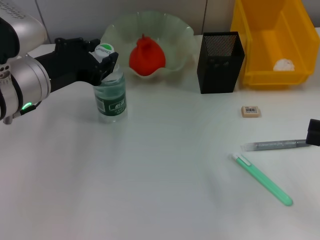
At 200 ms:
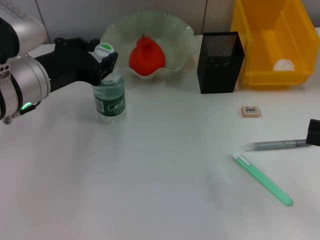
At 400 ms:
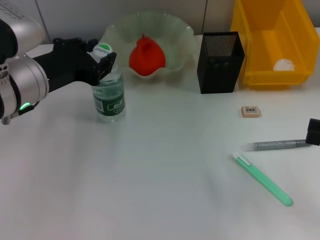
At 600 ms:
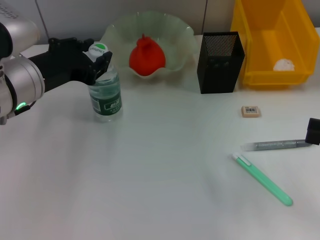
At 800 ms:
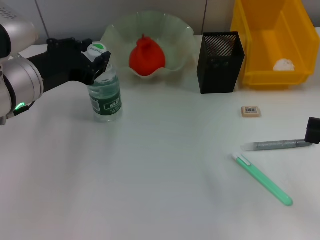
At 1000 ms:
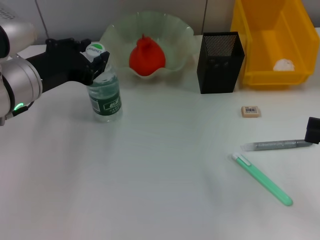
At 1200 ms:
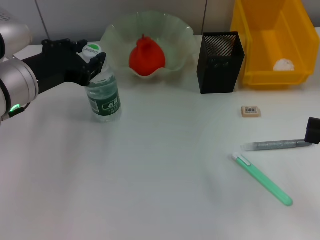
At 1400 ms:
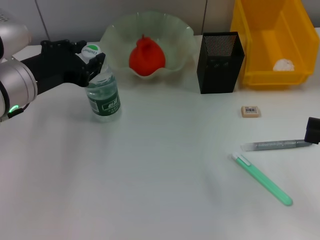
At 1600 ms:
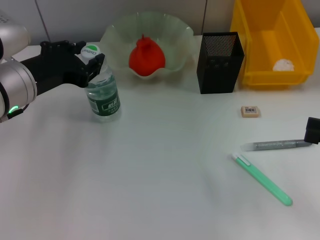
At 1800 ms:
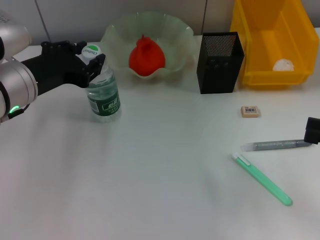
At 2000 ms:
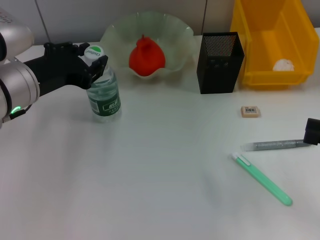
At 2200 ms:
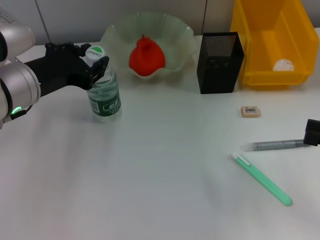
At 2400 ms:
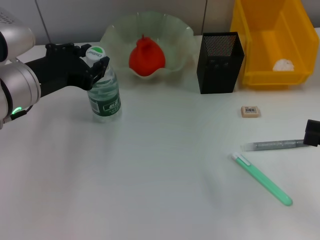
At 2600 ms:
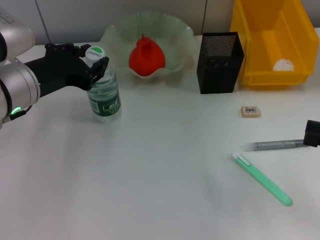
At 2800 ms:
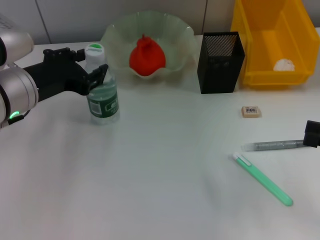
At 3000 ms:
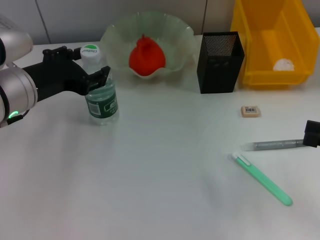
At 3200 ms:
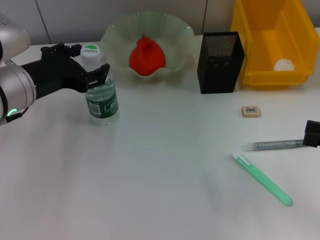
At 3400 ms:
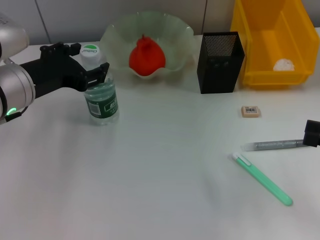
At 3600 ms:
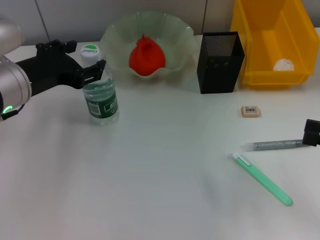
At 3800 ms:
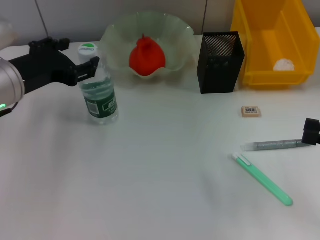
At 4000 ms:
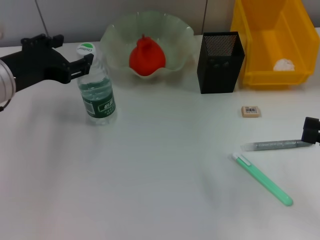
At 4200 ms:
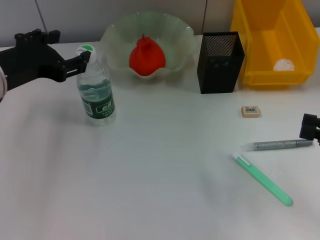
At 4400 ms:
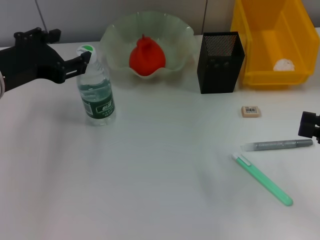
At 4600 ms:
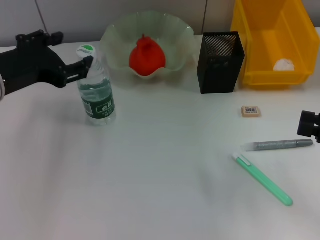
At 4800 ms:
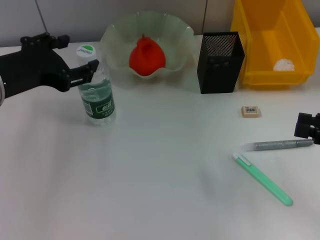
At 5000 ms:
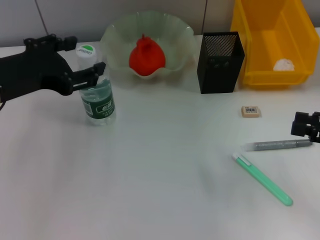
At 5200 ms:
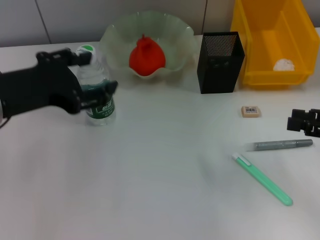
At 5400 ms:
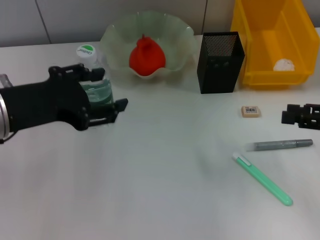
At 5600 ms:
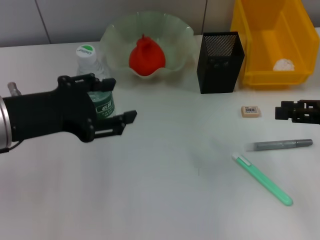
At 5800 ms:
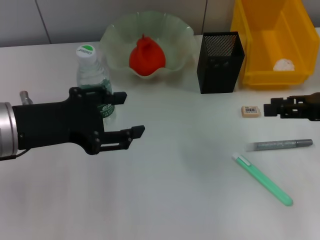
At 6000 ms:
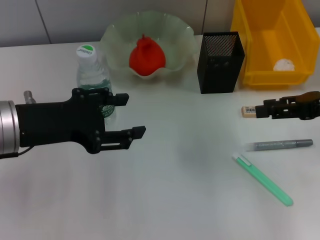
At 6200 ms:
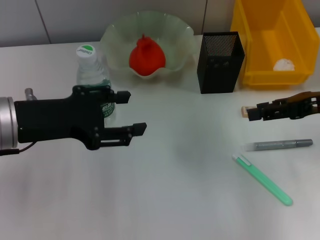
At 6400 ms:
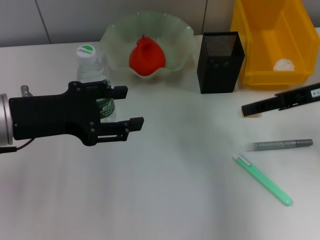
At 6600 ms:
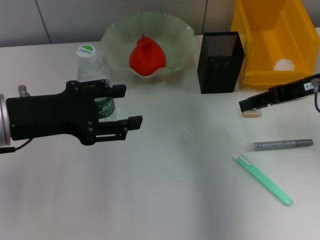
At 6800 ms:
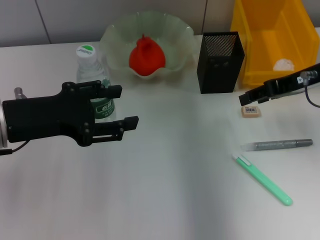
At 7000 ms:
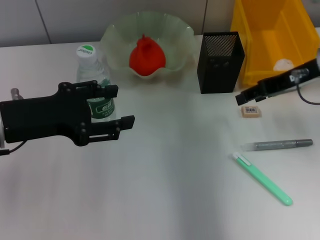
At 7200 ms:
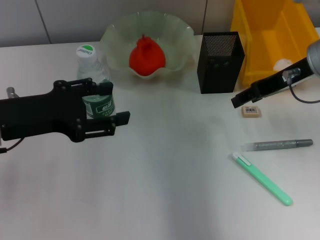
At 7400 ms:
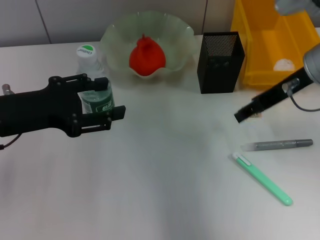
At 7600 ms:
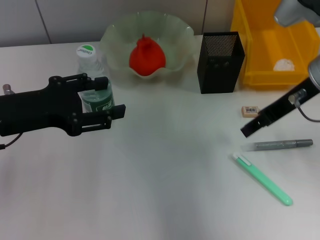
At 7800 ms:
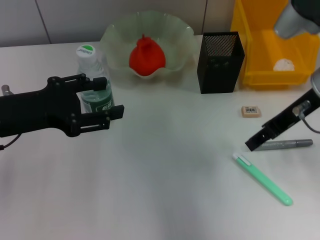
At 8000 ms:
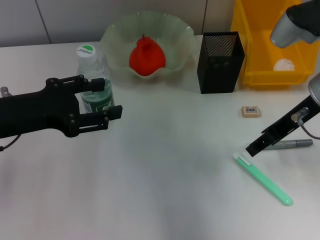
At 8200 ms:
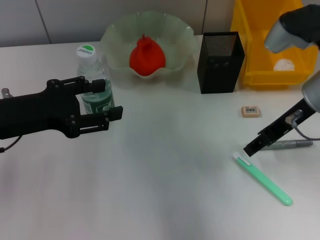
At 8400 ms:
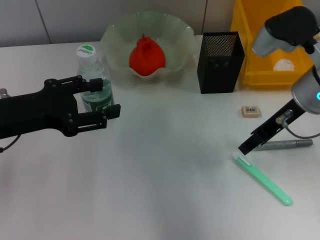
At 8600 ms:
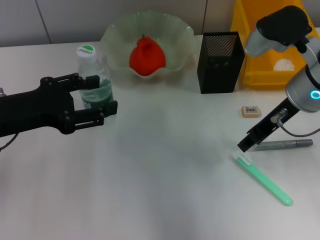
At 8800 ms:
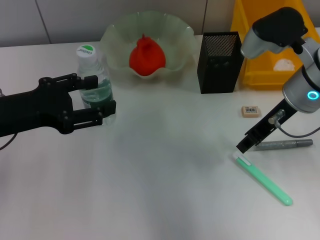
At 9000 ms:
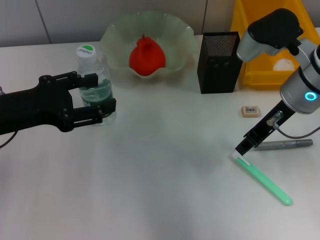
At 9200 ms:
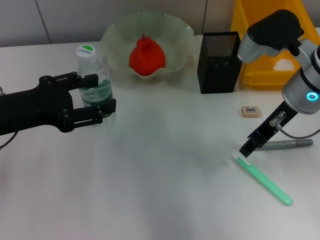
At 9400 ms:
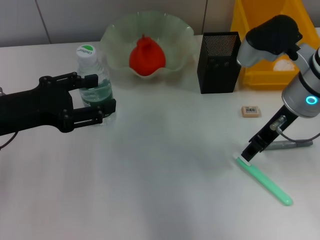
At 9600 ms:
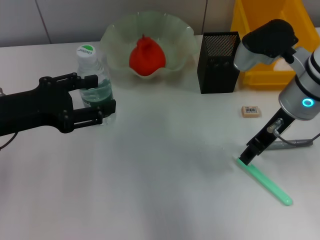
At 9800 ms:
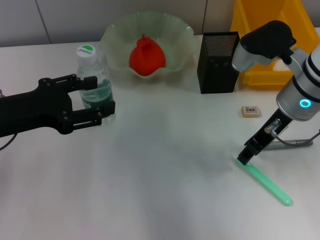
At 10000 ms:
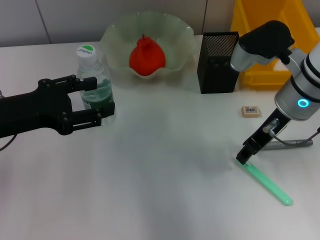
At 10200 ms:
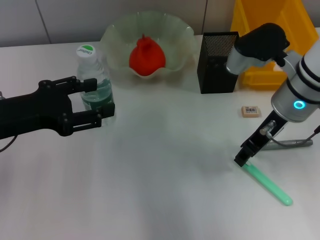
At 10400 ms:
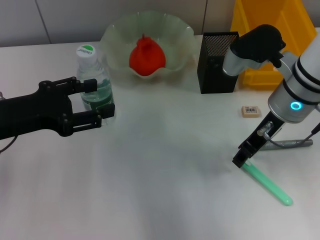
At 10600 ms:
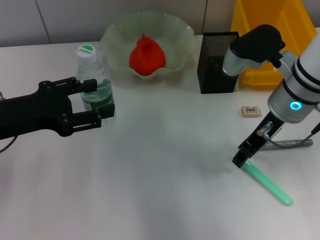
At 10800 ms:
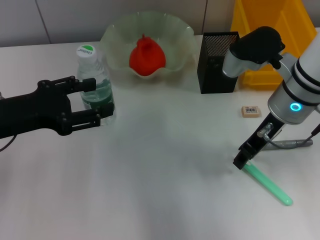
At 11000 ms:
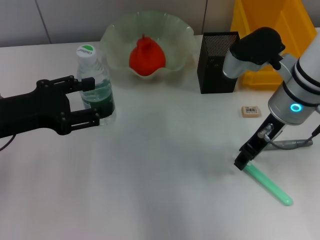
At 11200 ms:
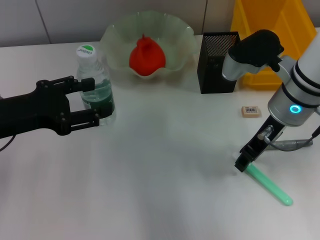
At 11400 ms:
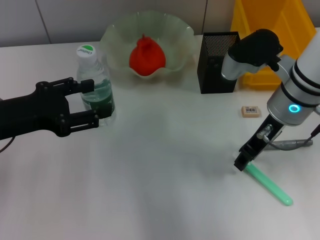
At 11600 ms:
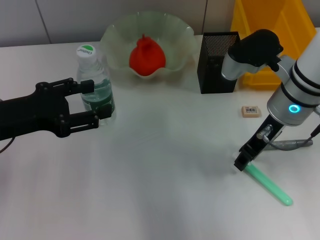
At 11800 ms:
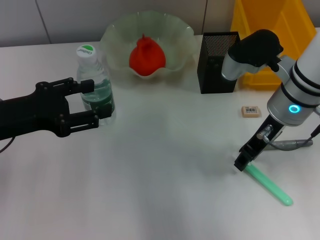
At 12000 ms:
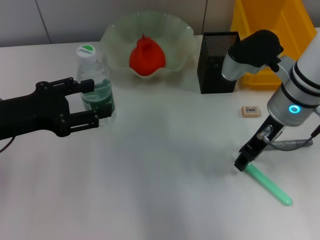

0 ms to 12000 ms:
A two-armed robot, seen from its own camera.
0 ms to 1600 ms: The grippers stay close to where they were, moving slightly.
1600 ms to 3000 ms: Both grippers stay put.
3000 ms to 4400 ms: The left gripper opens up.
4400 ms to 6000 ms: The right gripper shifts roughly 10 cm forward and to the left.
6000 ms to 7600 ms: The right gripper shifts approximately 10 cm to the left.
7600 ms to 9000 ms: The grippers stay close to where they were, moving slightly.
9000 ms to 10400 ms: There are only small adjustments of the grippers.
10400 ms to 12000 ms: Neither gripper changes place.

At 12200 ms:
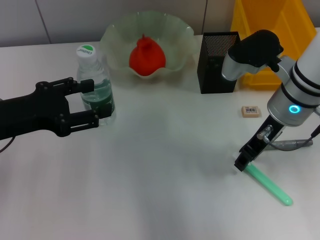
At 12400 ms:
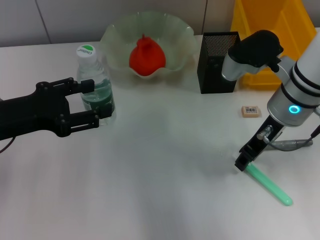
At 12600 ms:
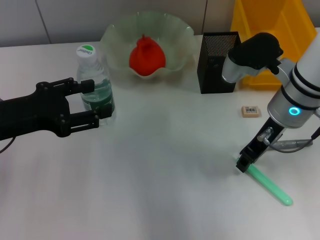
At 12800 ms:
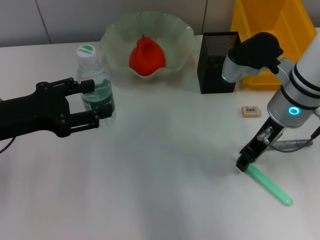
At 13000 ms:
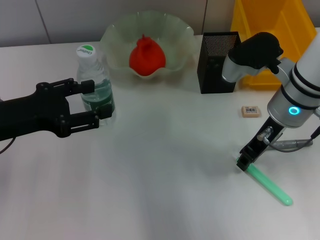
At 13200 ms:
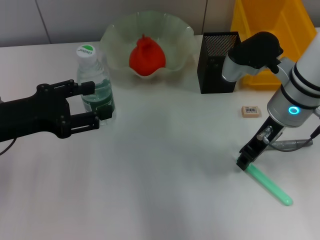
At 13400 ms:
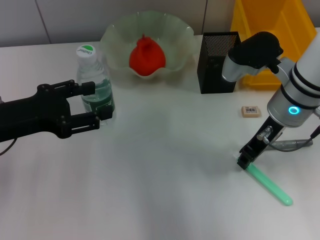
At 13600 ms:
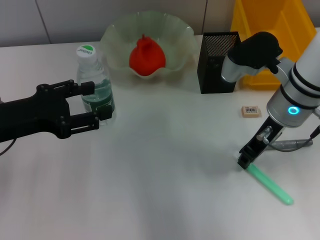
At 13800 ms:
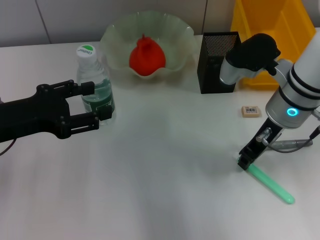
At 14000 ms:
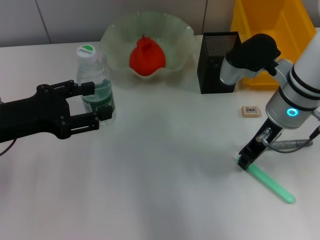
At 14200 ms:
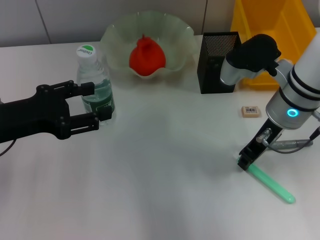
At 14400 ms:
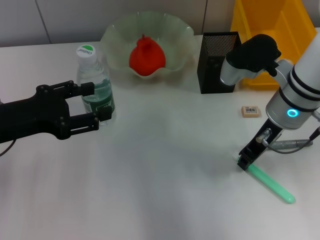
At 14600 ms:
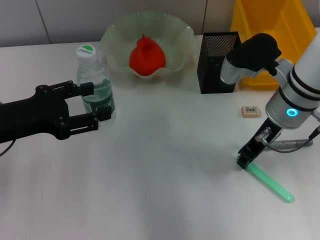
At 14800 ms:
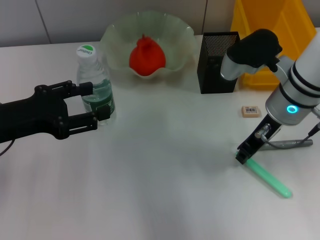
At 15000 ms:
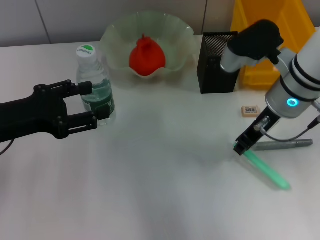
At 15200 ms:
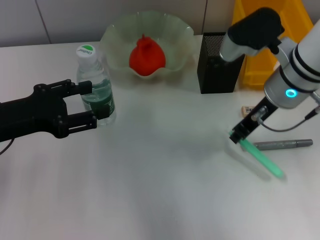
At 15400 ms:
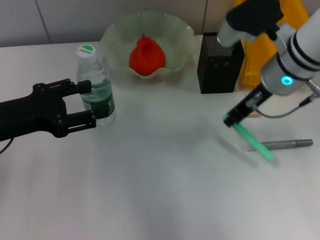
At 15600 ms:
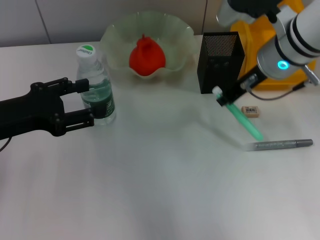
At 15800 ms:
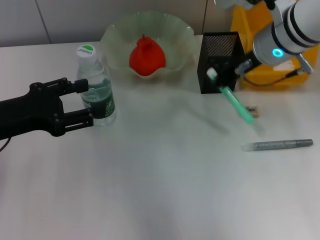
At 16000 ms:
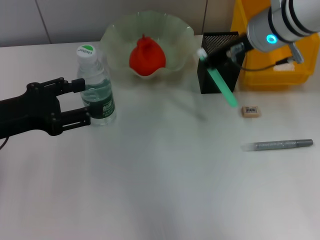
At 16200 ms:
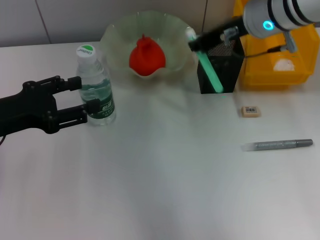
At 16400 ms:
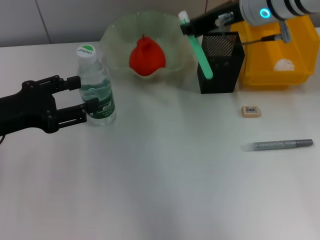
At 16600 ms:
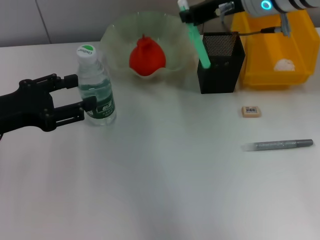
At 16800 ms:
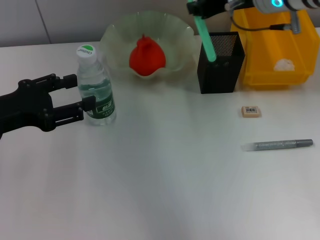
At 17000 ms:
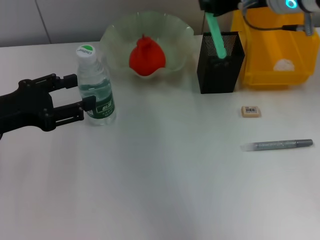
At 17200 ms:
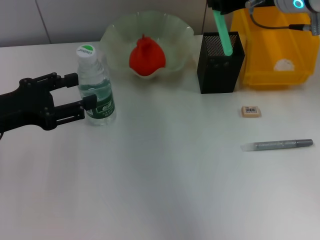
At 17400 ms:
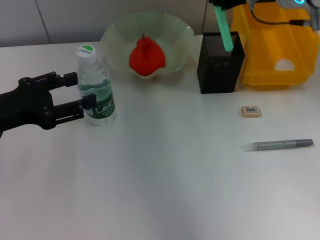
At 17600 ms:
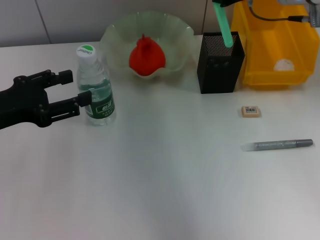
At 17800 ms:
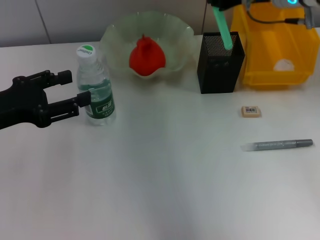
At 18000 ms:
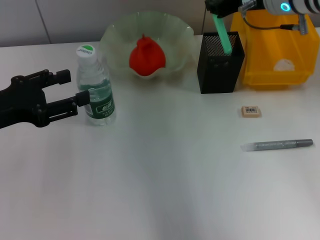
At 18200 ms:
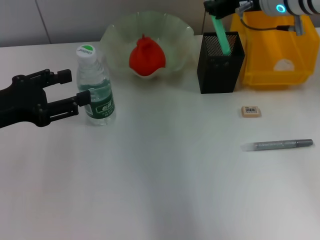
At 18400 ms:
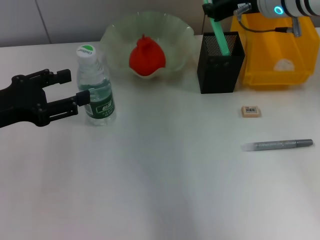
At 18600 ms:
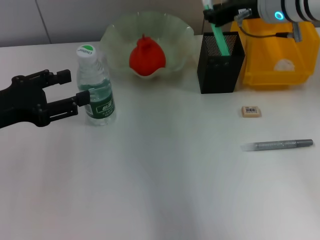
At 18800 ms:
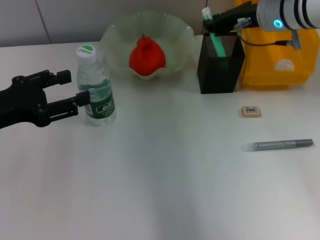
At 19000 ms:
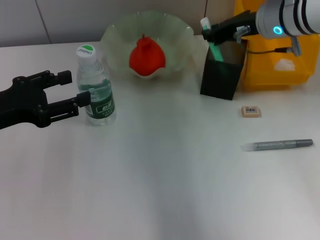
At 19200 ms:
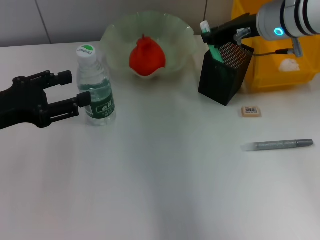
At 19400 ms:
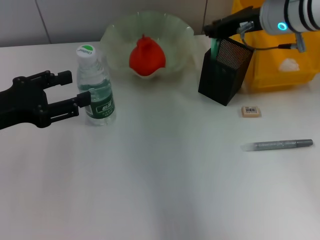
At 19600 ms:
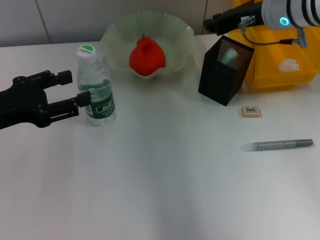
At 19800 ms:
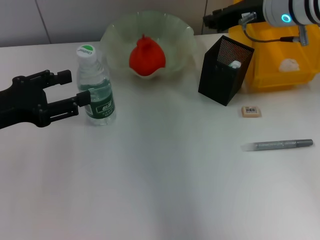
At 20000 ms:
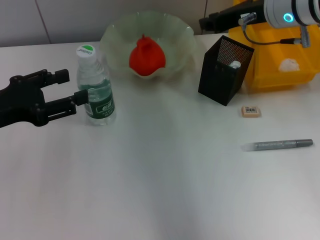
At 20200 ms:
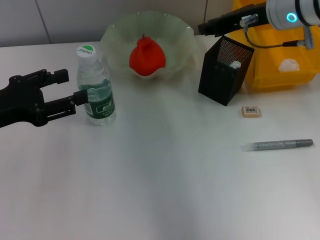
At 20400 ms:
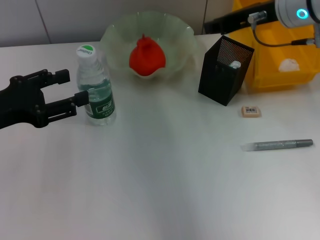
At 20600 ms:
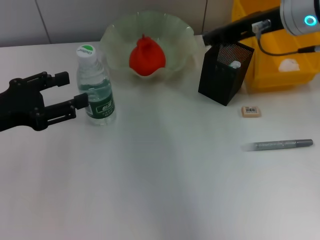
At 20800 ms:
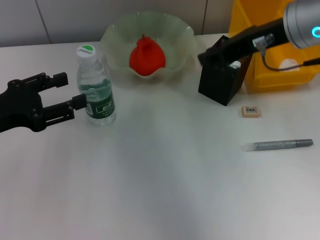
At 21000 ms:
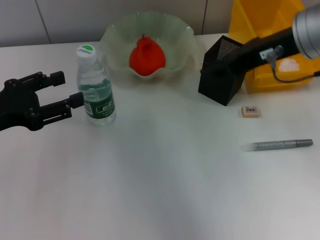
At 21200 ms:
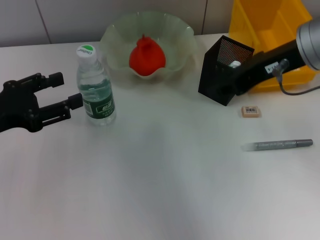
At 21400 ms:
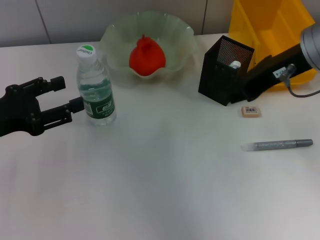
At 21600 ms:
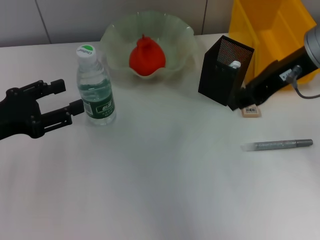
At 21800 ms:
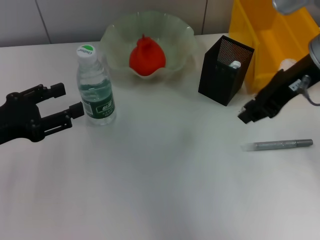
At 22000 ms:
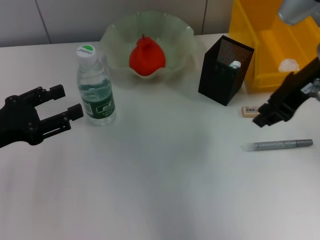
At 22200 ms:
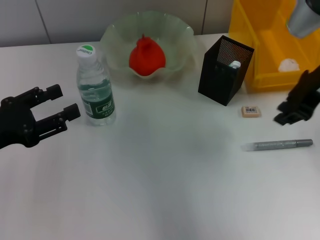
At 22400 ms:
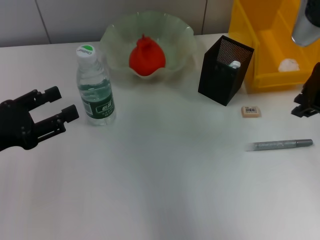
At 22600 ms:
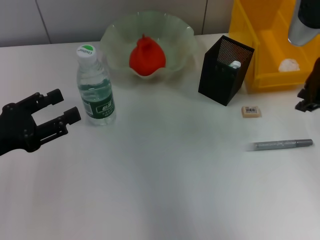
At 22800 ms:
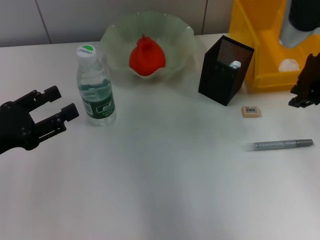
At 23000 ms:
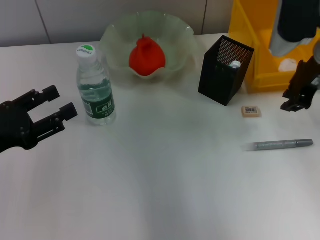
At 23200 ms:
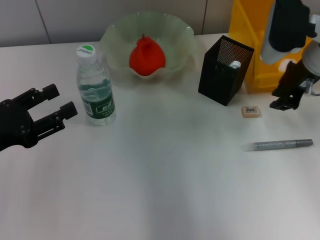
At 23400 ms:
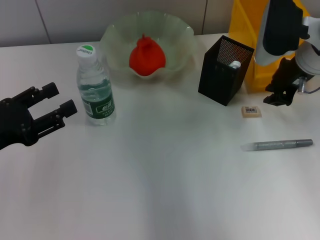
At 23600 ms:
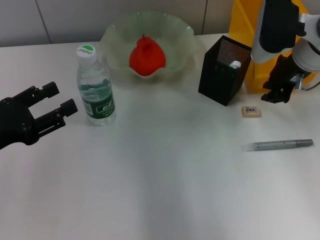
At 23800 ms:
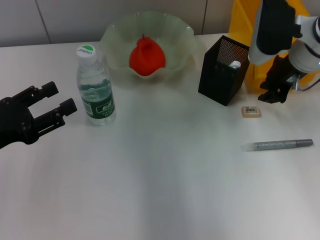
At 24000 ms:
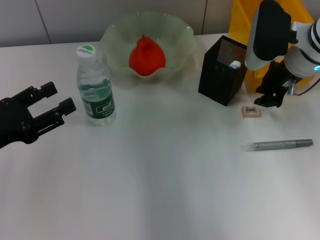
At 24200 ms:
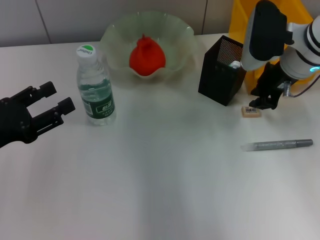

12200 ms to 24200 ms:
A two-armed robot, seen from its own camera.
Step, 14200 ms to 19600 ms: Place the blue utility knife into the pen holder with the right hand.
12200 ms to 13800 ms: The two grippers keep their place.
13800 ms to 15200 ms: The grippers make only small movements.
15200 ms to 16600 ms: The right gripper travels upward and forward by some 10 cm.
16600 ms to 19800 ms: There are only small adjustments of the grippers.
19800 ms to 21200 ms: The right gripper goes about 10 cm backward.
21200 ms to 22600 ms: The right gripper shifts roughly 5 cm to the right.
22600 ms to 24200 ms: The right gripper shifts about 5 cm downward.
